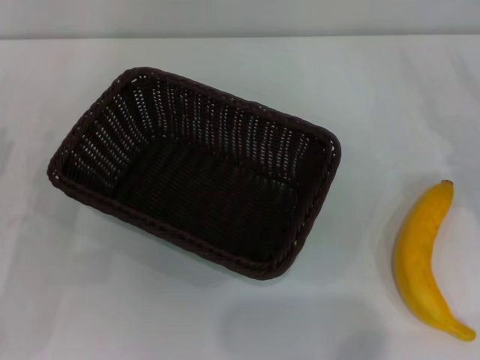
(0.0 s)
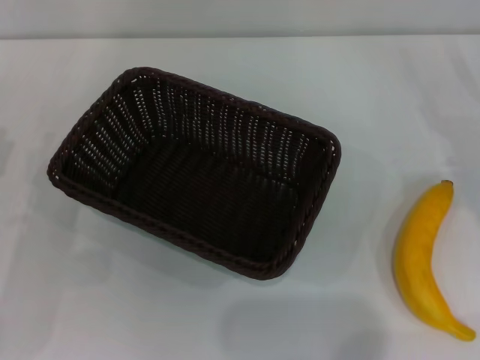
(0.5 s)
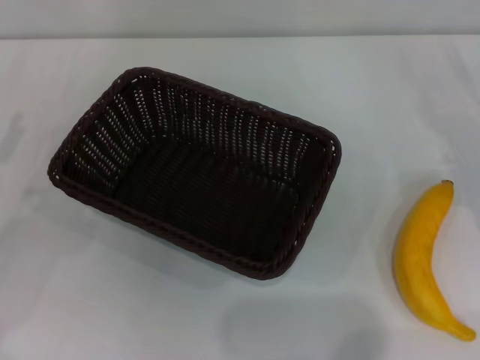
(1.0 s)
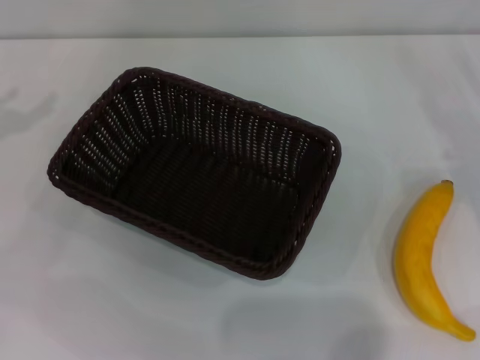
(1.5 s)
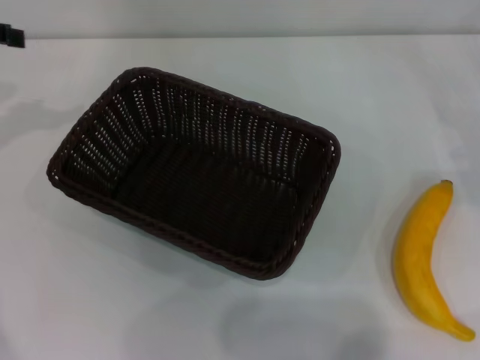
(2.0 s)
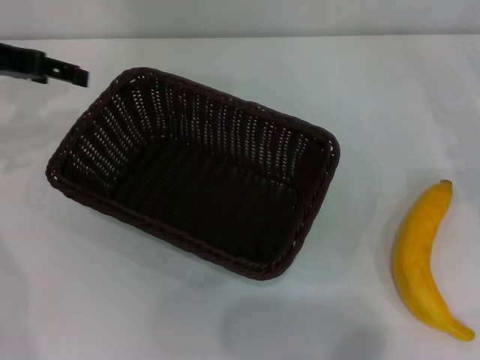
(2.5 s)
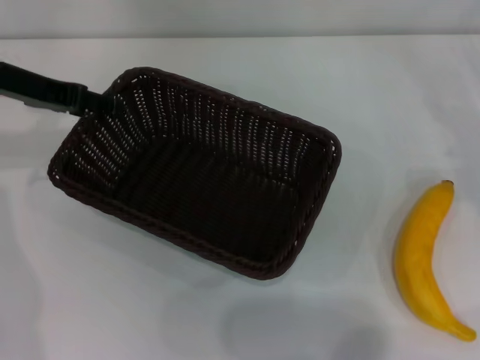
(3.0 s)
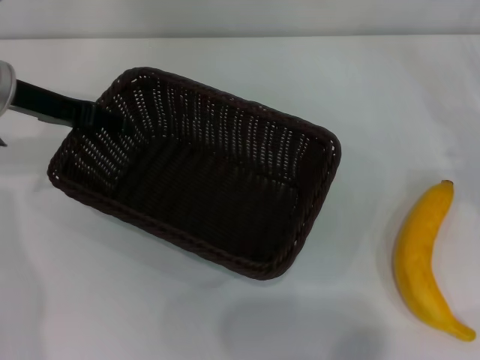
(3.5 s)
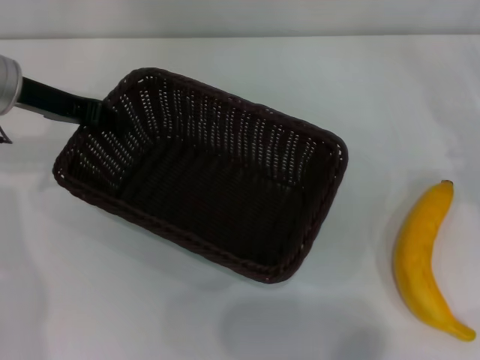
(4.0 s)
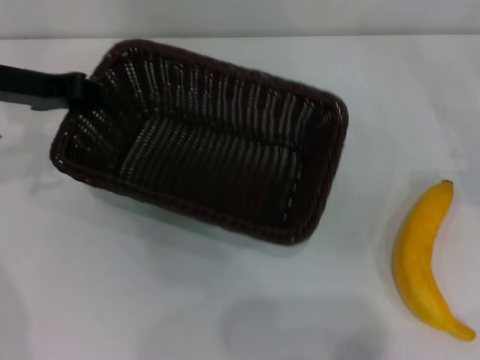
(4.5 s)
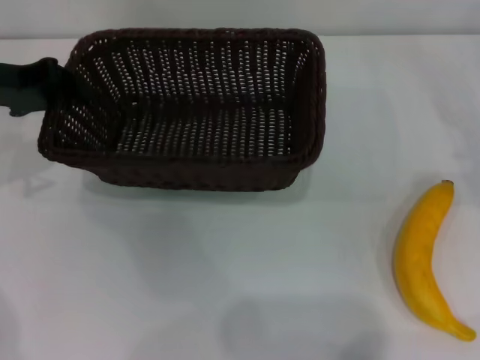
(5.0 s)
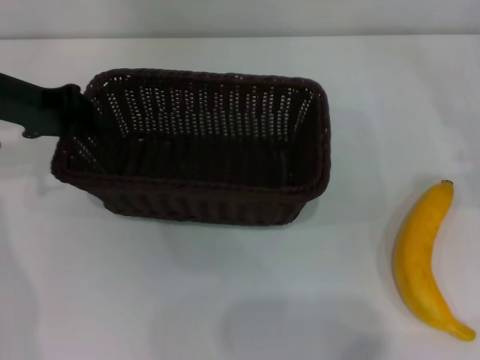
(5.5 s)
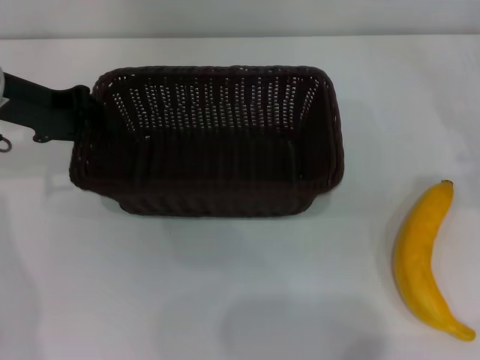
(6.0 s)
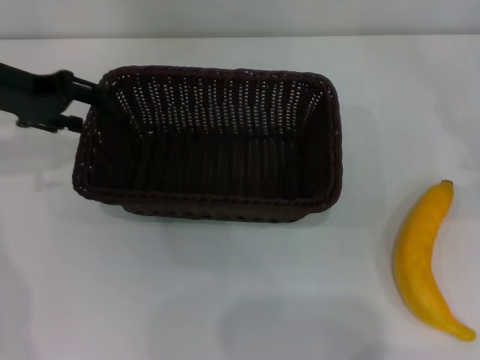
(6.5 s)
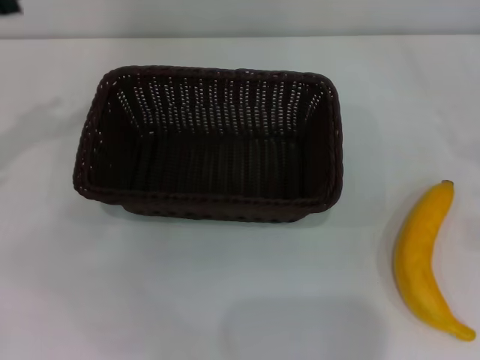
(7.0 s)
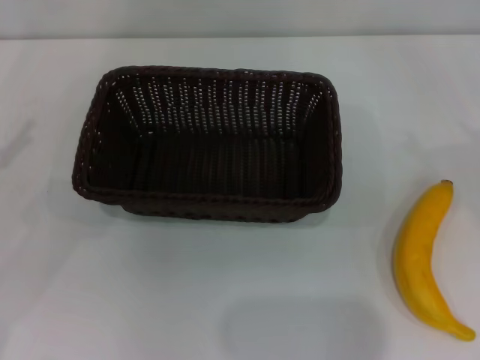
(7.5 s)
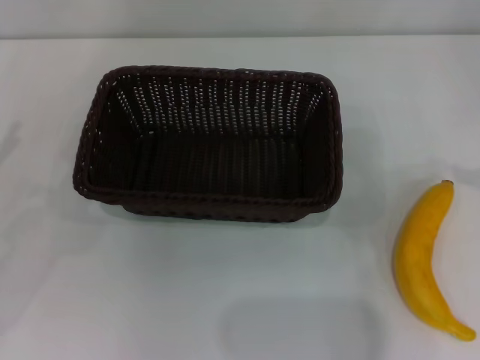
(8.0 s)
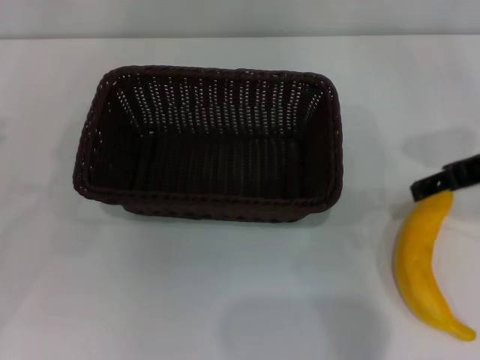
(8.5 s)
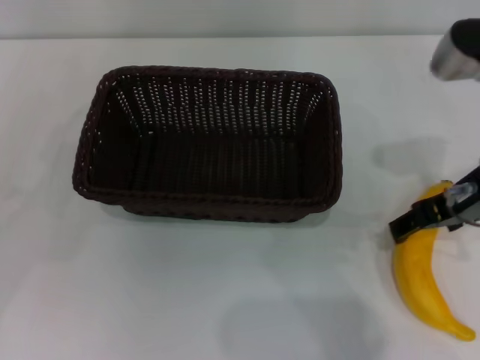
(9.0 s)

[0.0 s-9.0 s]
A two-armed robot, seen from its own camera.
Step, 0.0 to 4.5 s: Pick up the dark basket with the left gripper.
Step, 5.0 to 6.0 s: Place the dark basket in the center of view with the left gripper.
2.0 to 4.5 s: The left gripper shifts some 10 cm to the right and downward, and closes its fingers.
4.5 to 7.0 s: The left gripper travels to the left by approximately 10 cm, and opens its fingers. The right gripper goes some 5 cm backward.
7.0 to 9.0 s: The right gripper travels to the left and upward by roughly 25 cm.

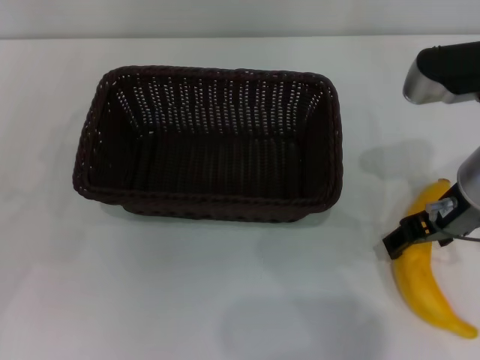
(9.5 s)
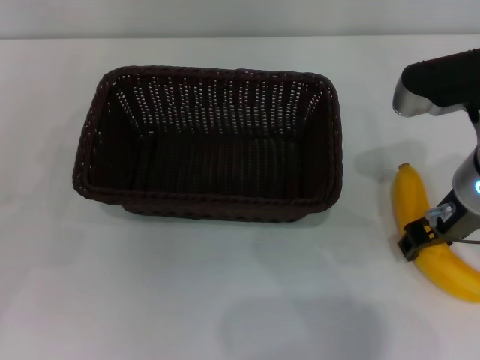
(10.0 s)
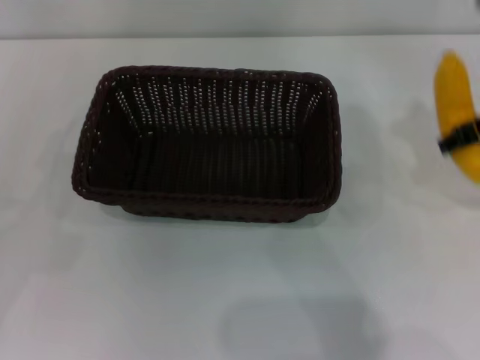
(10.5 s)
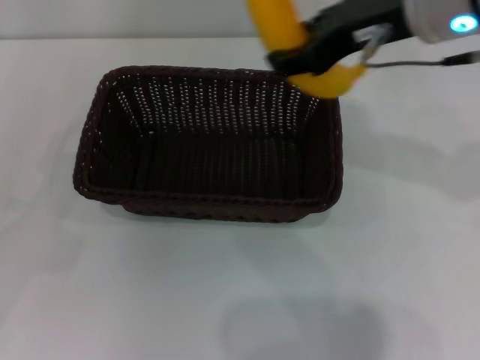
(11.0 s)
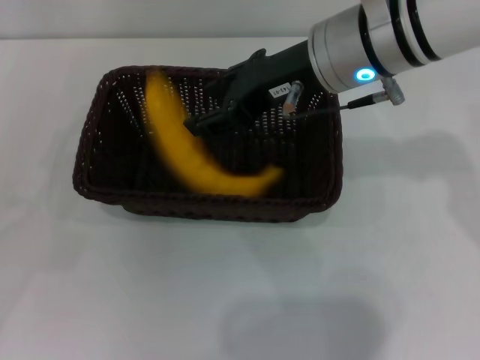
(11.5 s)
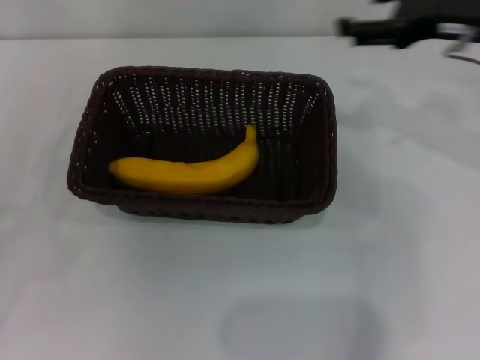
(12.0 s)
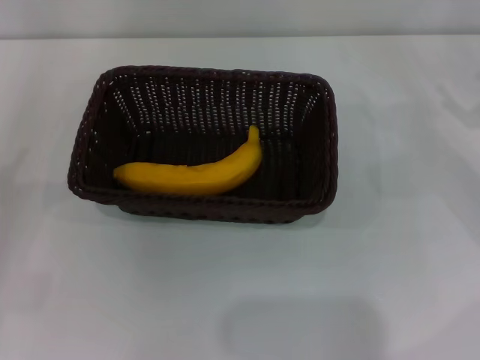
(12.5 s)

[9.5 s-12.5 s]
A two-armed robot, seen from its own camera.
Step, 10.5 to 11.5 s: Place the banana into the dark basket with the right gripper.
9.5 to 11.0 s: The right gripper heads upward, covering about 10 cm, and closes up.
11.0 to 12.5 s: The right gripper moves to the right and downward, approximately 30 cm, and opens its fingers. Meanwhile the left gripper is displaced downward by approximately 5 cm.
